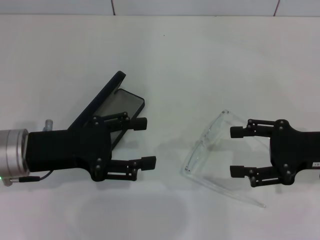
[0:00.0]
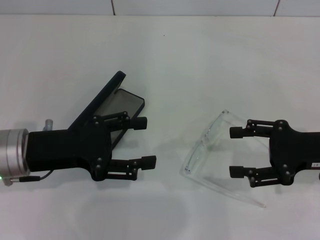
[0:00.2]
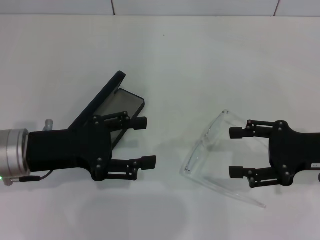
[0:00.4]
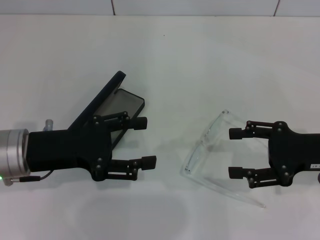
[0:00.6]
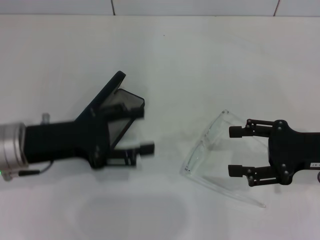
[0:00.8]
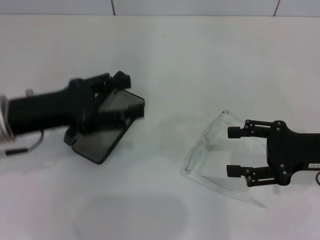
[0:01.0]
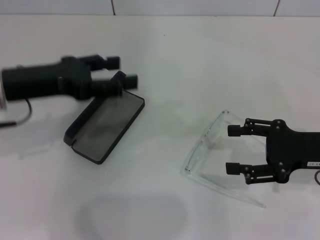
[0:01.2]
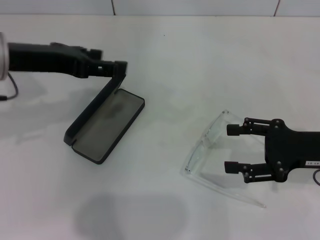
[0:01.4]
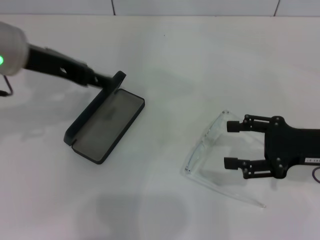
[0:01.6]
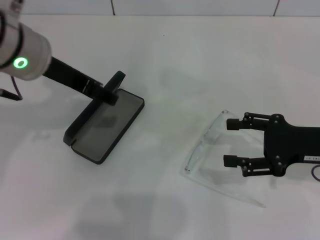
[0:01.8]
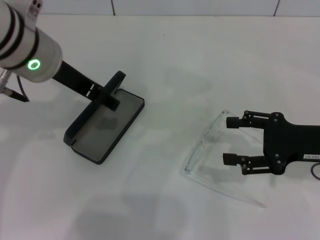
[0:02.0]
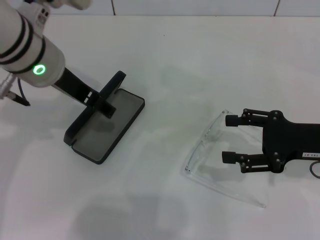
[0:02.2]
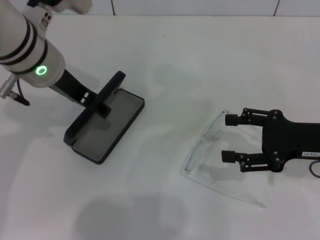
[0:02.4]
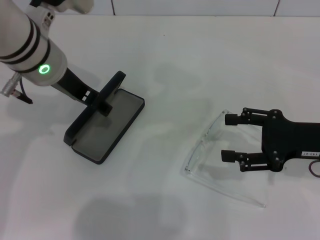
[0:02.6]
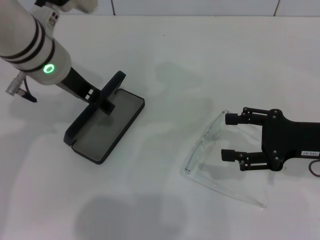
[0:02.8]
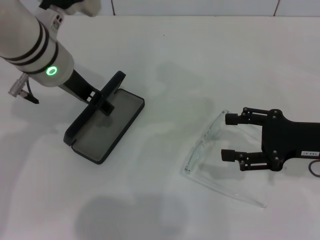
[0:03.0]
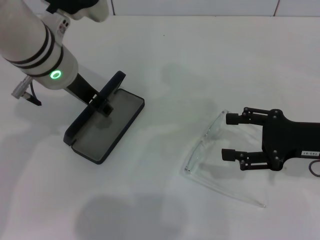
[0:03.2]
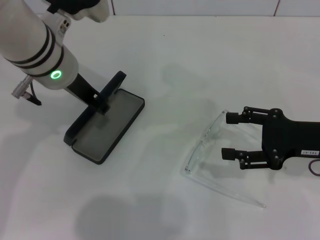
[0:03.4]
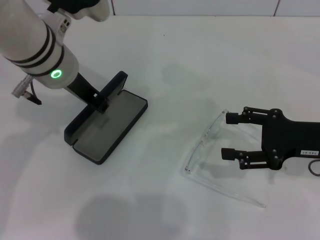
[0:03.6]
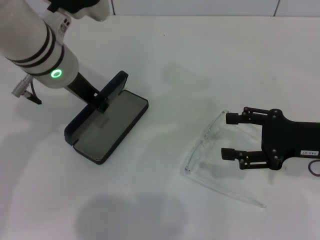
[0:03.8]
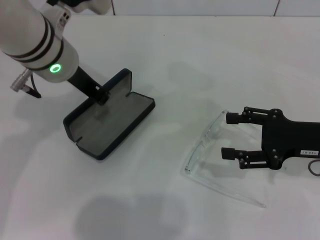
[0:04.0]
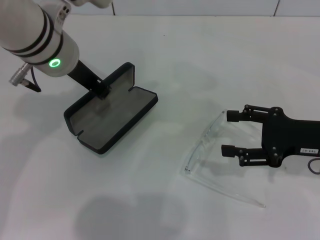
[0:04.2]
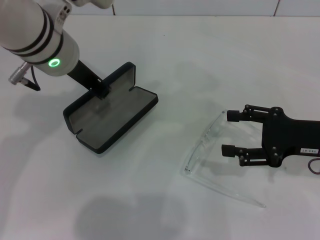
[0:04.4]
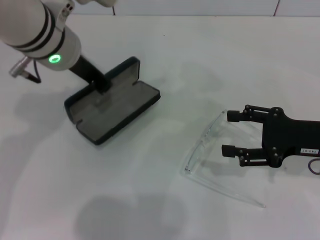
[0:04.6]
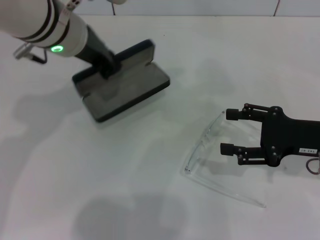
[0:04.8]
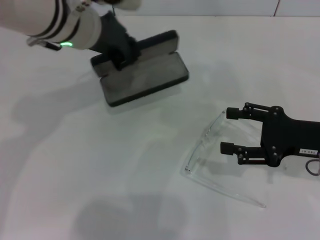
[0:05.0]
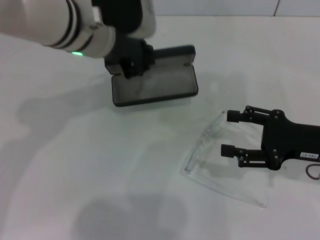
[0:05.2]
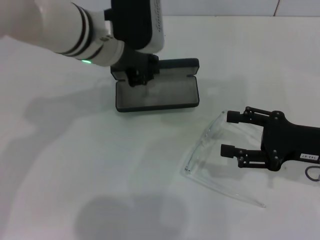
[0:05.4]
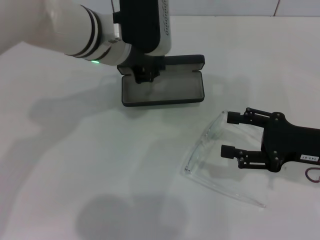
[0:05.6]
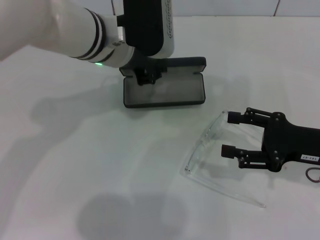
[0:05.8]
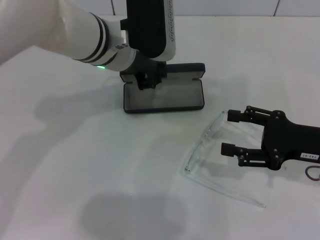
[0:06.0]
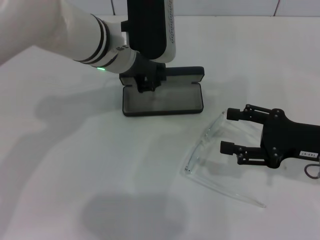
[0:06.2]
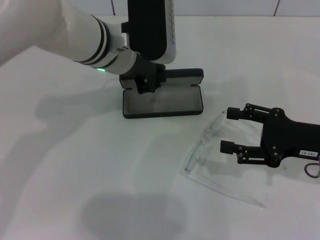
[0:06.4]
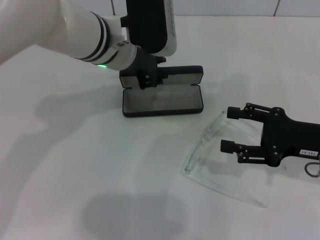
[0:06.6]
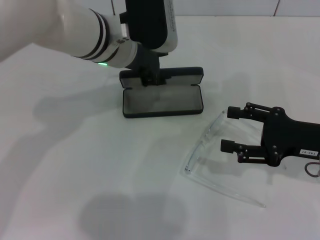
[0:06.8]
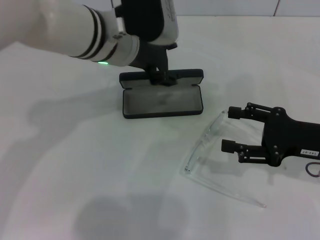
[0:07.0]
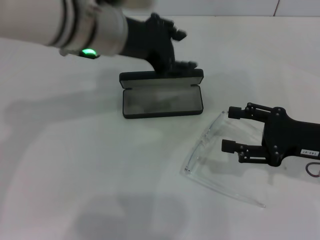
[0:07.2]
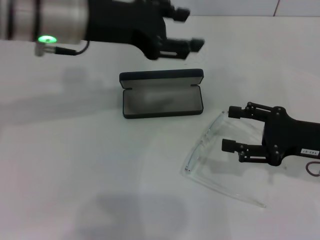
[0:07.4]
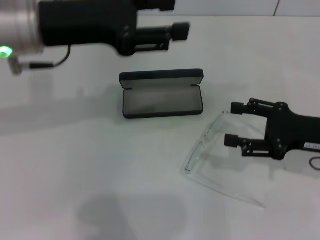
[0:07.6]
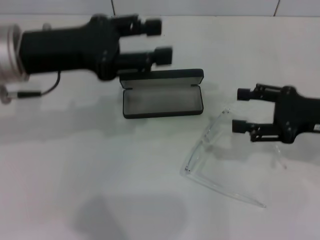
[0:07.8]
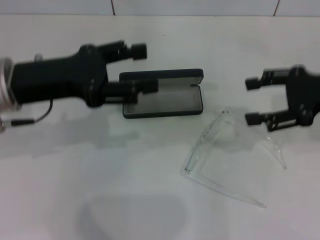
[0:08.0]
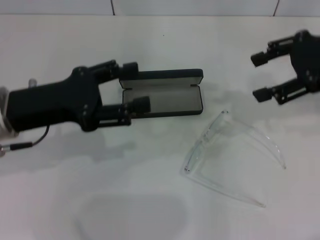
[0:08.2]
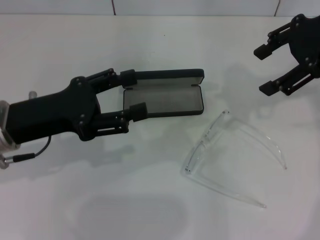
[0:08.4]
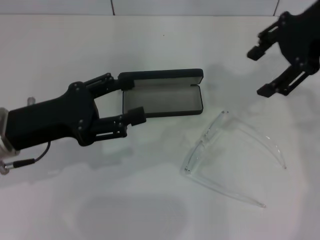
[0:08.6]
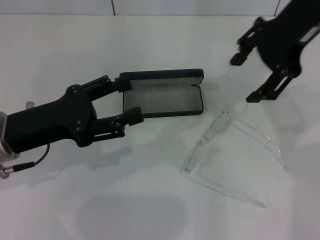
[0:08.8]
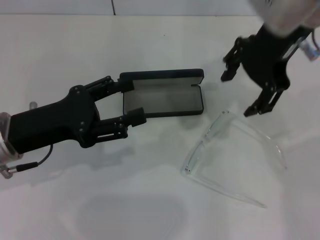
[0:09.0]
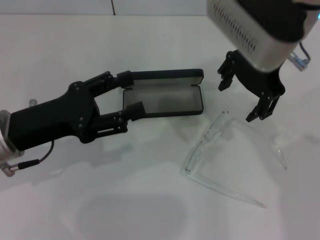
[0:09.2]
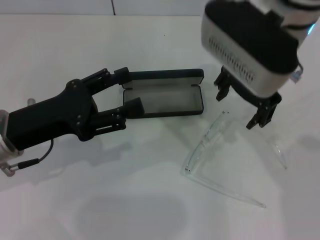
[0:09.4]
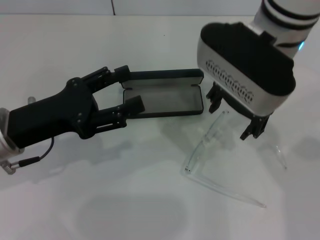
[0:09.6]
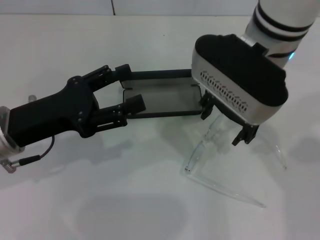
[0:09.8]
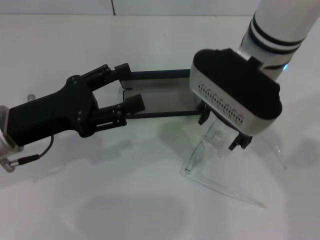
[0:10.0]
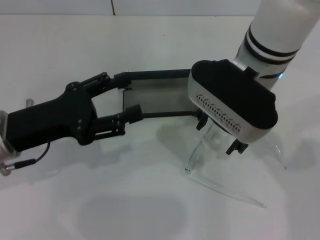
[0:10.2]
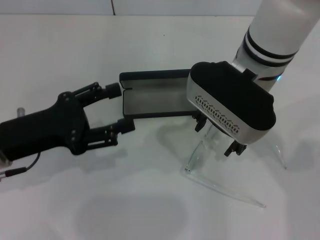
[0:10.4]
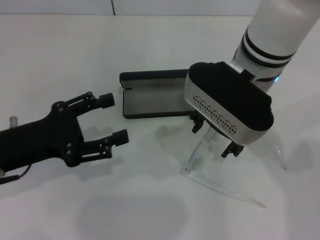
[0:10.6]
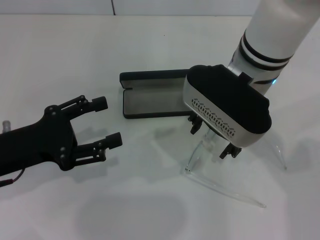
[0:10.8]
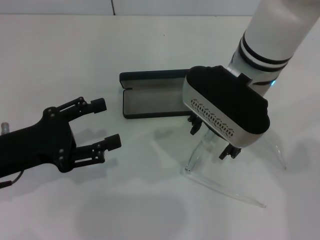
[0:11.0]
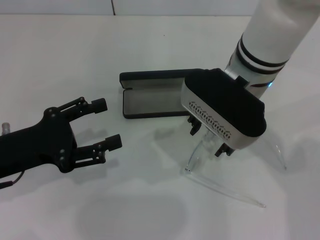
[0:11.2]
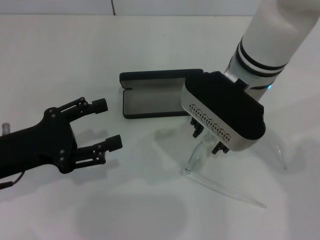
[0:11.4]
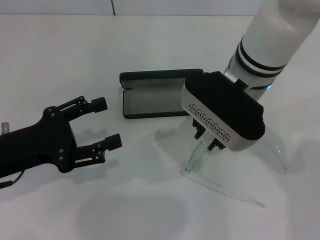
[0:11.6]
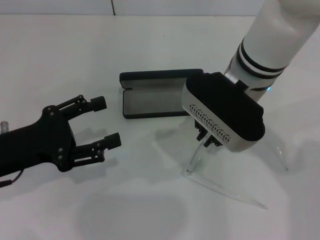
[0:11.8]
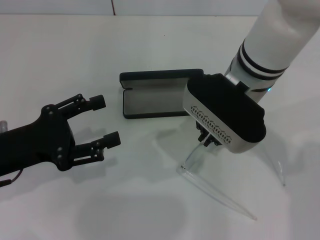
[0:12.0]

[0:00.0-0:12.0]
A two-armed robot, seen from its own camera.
Step, 0:00.0 to 0:03.8: Grab the glasses case with your left hand.
Step, 0:04.0 to 0:06.8: Place the glasses case in the center of the table with your left hand.
Step, 0:07.0 to 0:12.0: Grab the eyeglass frame with your right hand.
0:00.0 to 0:01.6: The left gripper goes roughly 15 cm upward and forward.
0:01.6 to 0:03.0: The left gripper changes place by approximately 5 cm.
0:03.0 to 0:04.4: The left gripper closes up.
0:04.4 to 0:06.0: The left gripper is displaced to the right by roughly 5 cm.
0:06.0 to 0:07.6: The left gripper travels to the left, upward and backward by some 15 cm, and opens up.
0:07.6 to 0:09.0: The left gripper shifts some 15 cm downward and backward; the right gripper travels upward, to the left and forward by approximately 25 cm.
0:09.0 to 0:10.4: The right gripper heads downward, covering approximately 10 cm.
0:10.4 to 0:12.0: The right gripper closes its fingers.

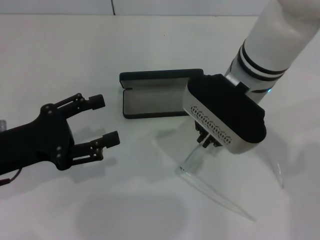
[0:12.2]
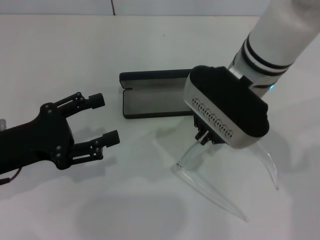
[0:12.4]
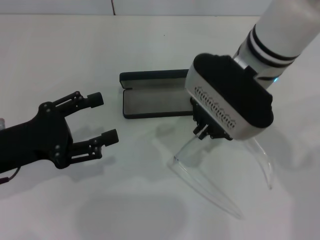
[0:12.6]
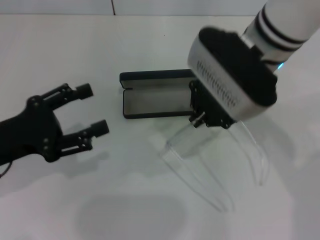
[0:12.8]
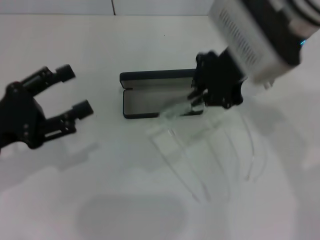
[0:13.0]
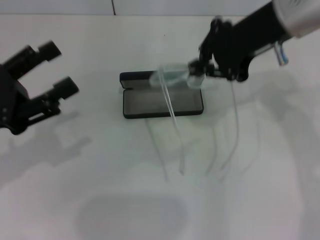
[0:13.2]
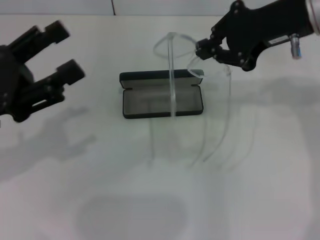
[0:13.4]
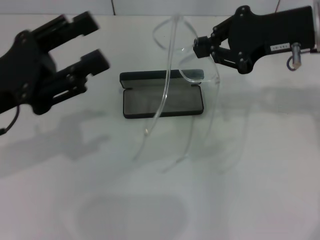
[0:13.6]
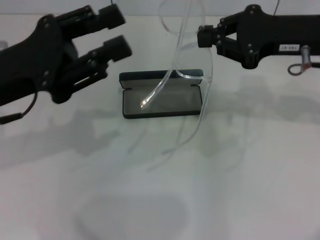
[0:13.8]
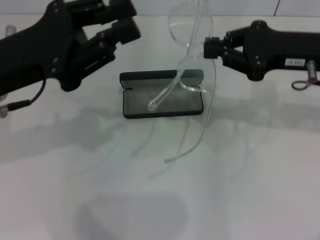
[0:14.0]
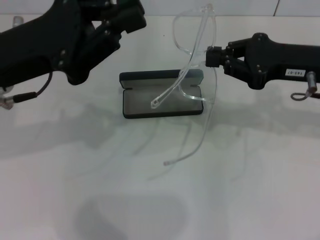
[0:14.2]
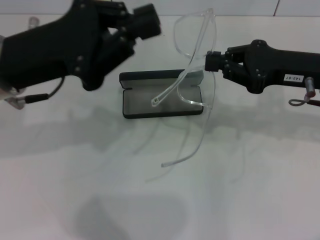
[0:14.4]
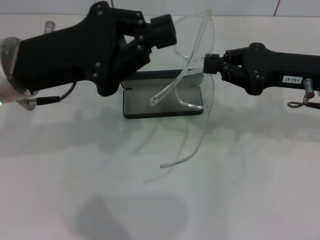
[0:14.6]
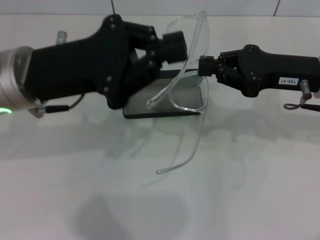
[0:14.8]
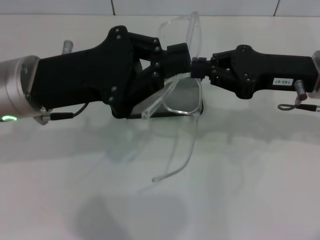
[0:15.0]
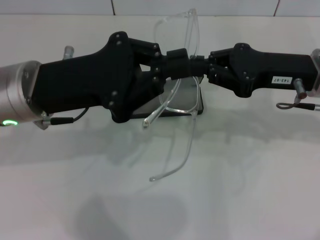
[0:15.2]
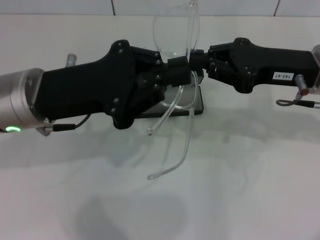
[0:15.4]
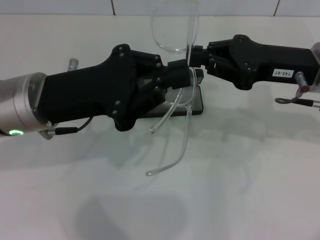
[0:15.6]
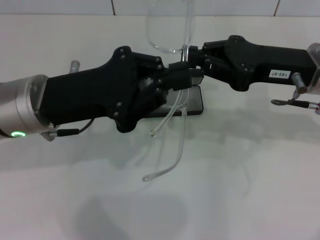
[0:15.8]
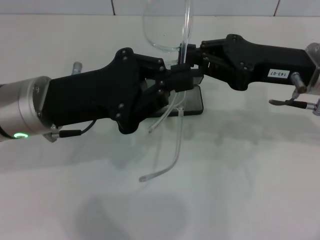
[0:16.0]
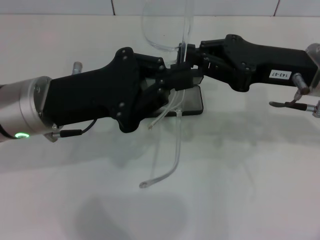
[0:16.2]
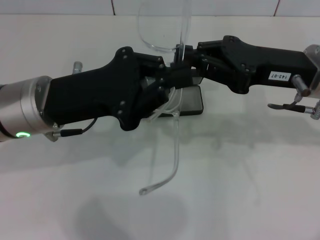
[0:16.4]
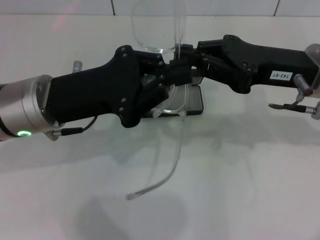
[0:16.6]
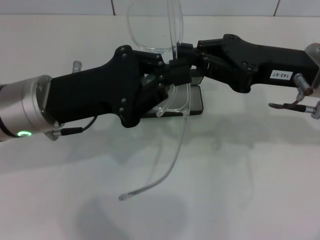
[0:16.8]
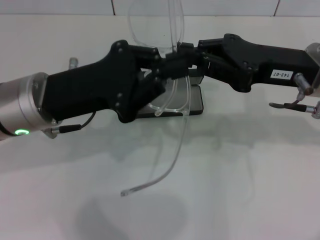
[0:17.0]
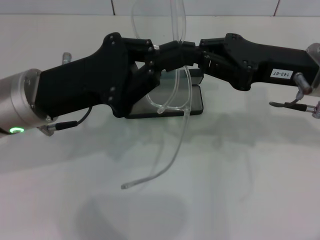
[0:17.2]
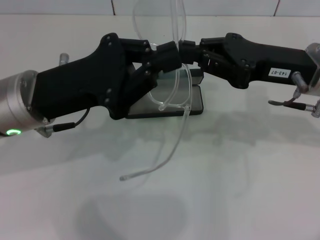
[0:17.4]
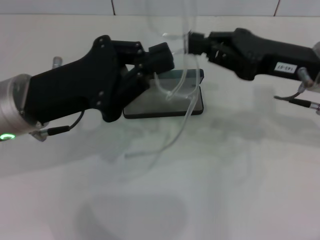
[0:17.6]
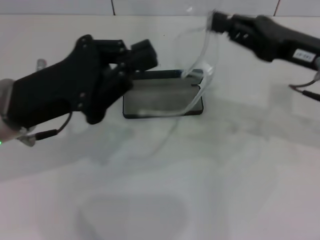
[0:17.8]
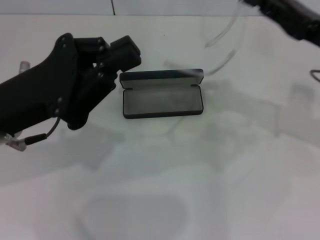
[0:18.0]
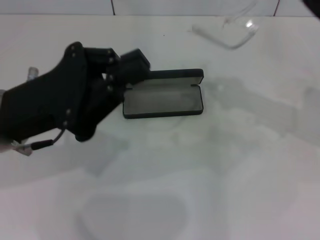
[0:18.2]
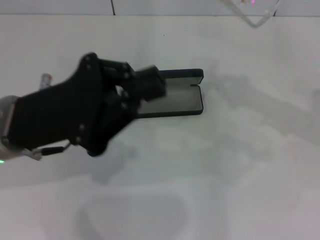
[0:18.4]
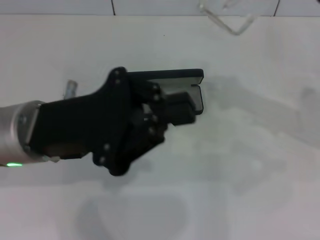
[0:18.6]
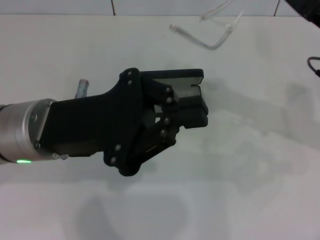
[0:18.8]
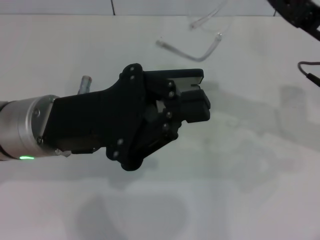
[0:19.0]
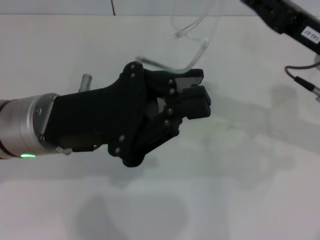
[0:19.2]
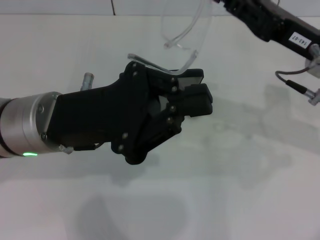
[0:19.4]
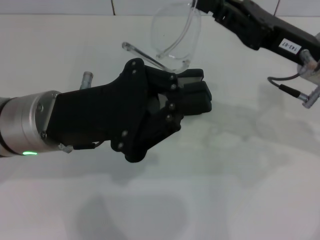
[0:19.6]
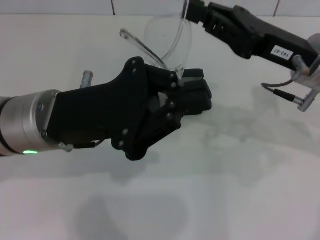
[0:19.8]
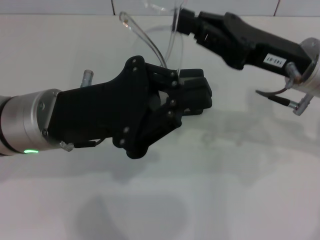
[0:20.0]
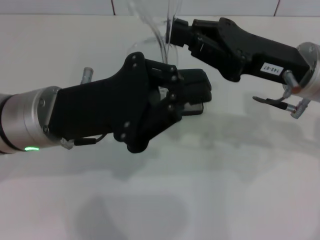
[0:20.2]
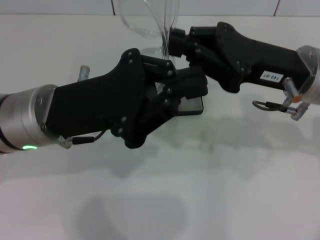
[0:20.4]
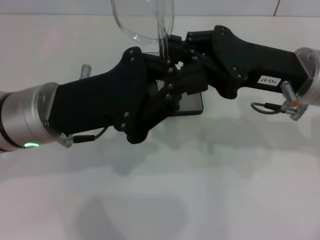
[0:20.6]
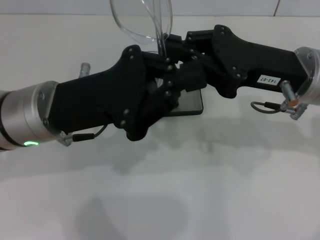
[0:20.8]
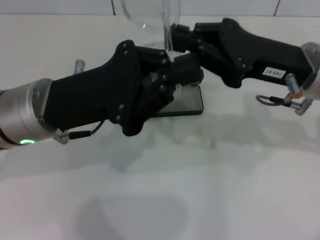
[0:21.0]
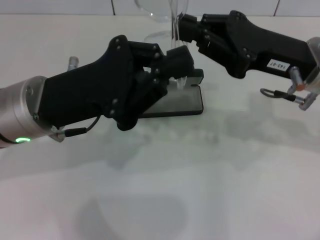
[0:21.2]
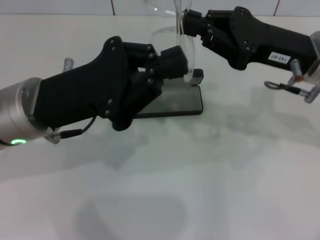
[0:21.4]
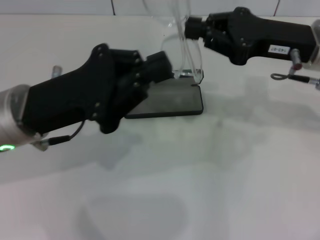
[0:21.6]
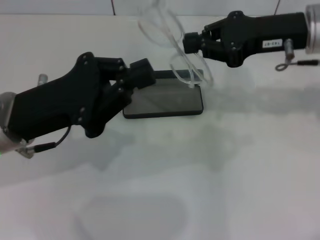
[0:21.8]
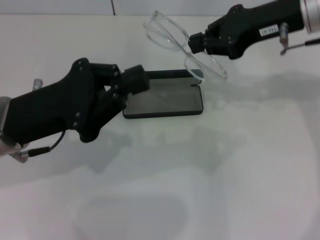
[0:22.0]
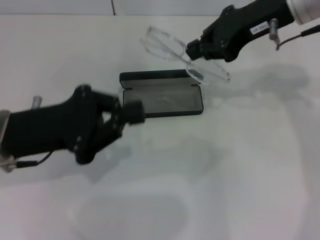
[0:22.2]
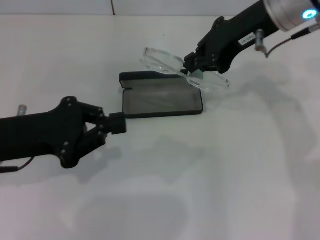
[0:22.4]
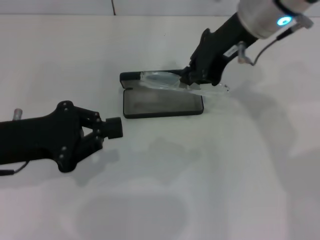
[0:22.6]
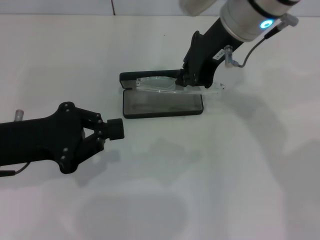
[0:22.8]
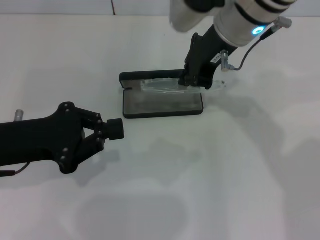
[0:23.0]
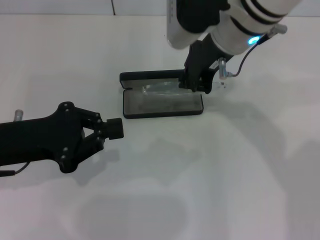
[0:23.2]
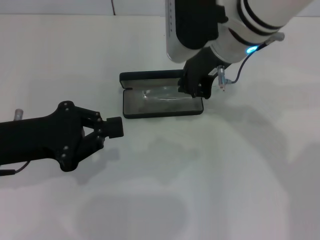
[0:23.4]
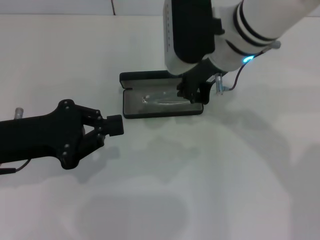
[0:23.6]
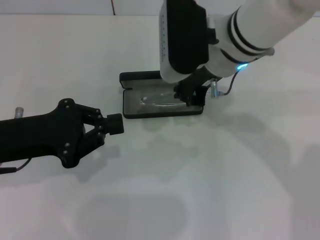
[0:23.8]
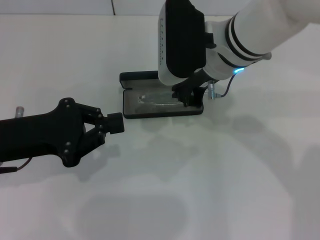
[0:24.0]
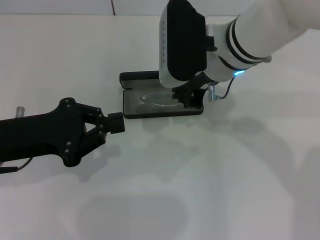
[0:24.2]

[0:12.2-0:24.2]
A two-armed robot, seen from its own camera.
Step, 0:12.2 to 0:20.8: Fold the frame with your left hand.
0:12.2 to 0:13.8: The left gripper moves upward, approximately 5 cm, while the right gripper heads to the right, covering some 15 cm.
0:13.8 to 0:15.2: The left gripper moves to the right, about 5 cm, and closes up.
0:15.2 to 0:16.6: The grippers move only a little.
0:16.6 to 0:18.2: The right gripper is displaced to the right by some 10 cm.
0:18.2 to 0:19.8: The right gripper heads to the left, covering about 10 cm.
0:21.2 to 0:22.6: The right gripper heads to the left, upward and forward, covering approximately 15 cm; the left gripper heads to the left, covering some 10 cm.
0:22.6 to 0:24.2: The right gripper travels downward by roughly 5 cm.
